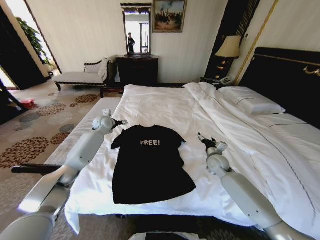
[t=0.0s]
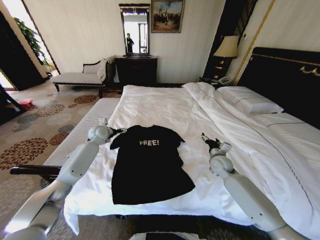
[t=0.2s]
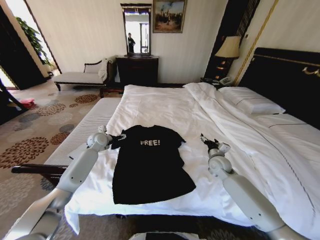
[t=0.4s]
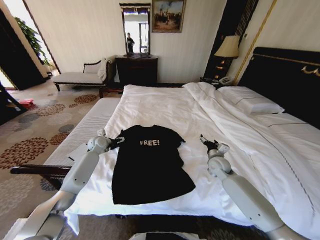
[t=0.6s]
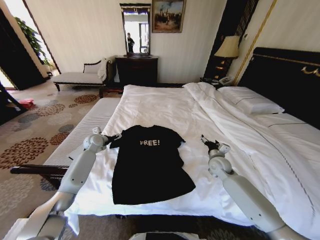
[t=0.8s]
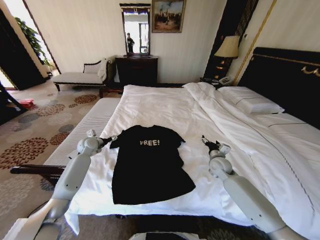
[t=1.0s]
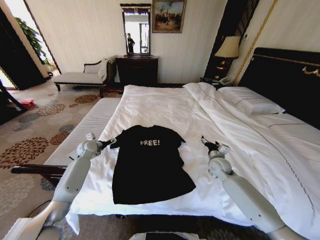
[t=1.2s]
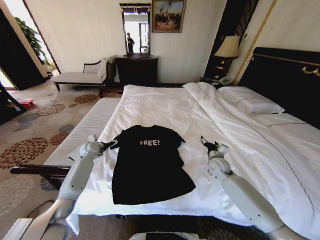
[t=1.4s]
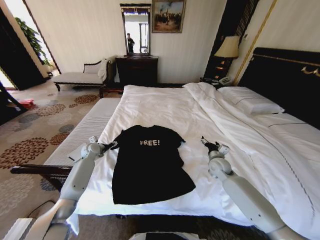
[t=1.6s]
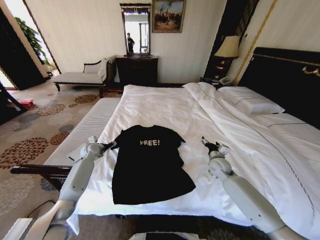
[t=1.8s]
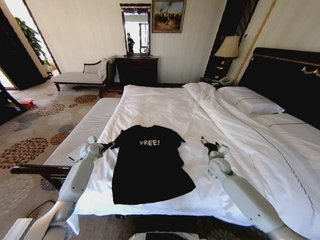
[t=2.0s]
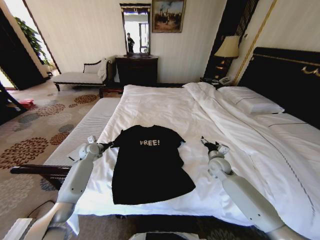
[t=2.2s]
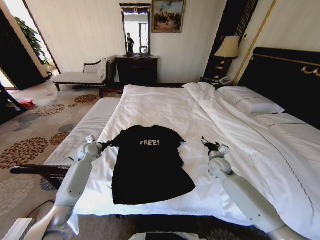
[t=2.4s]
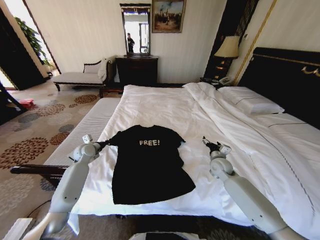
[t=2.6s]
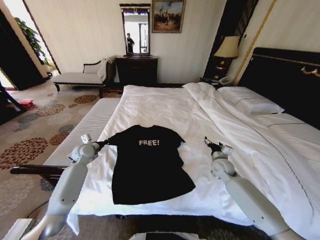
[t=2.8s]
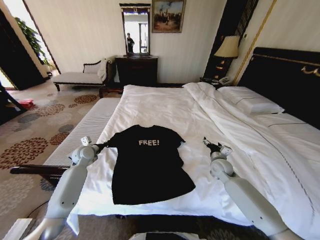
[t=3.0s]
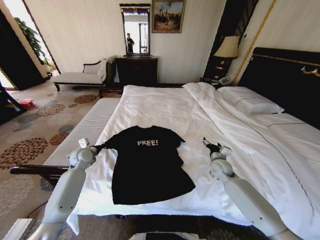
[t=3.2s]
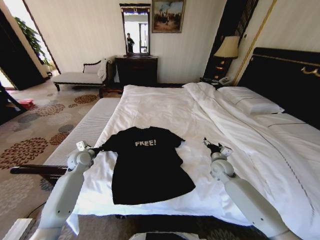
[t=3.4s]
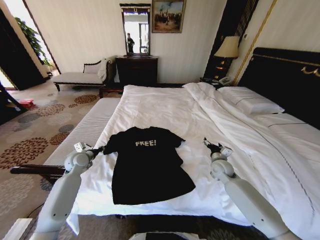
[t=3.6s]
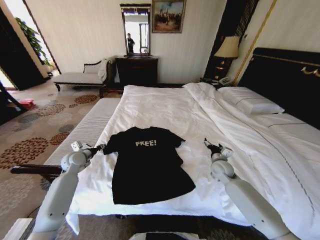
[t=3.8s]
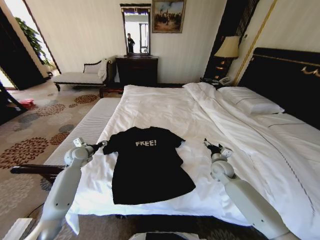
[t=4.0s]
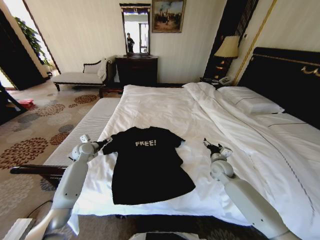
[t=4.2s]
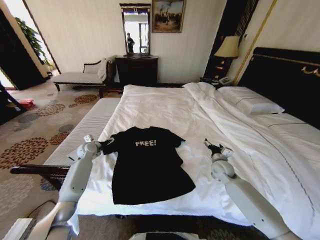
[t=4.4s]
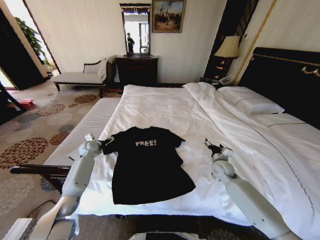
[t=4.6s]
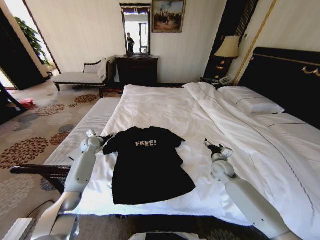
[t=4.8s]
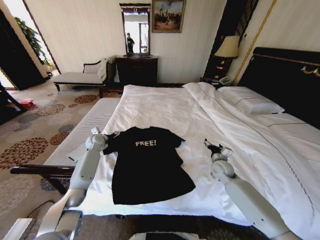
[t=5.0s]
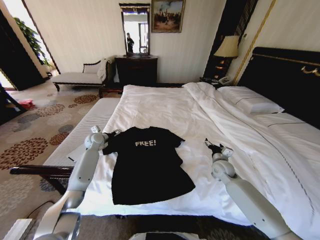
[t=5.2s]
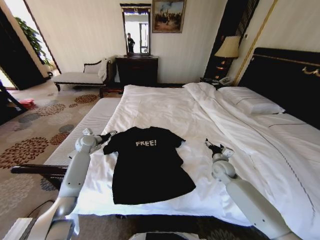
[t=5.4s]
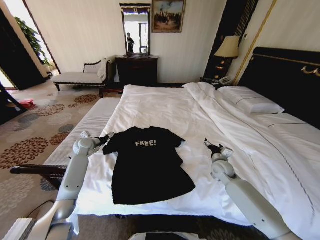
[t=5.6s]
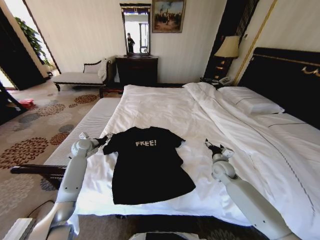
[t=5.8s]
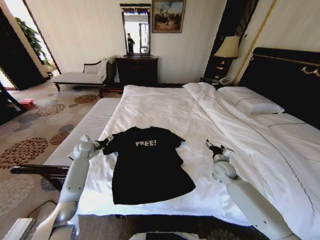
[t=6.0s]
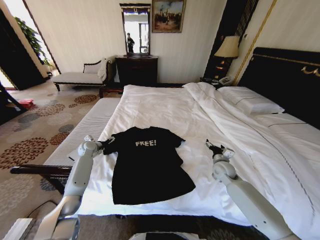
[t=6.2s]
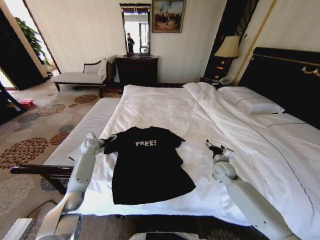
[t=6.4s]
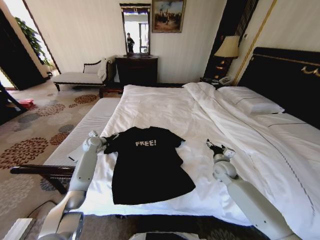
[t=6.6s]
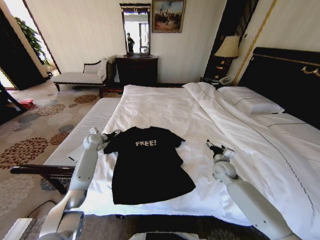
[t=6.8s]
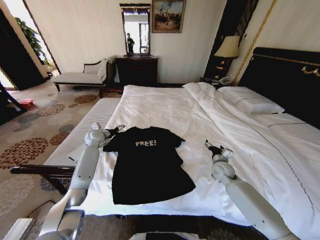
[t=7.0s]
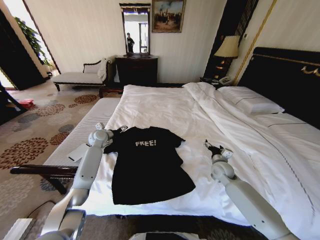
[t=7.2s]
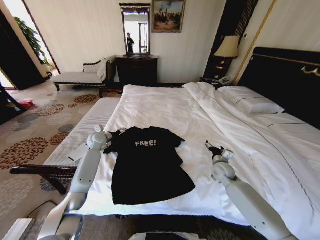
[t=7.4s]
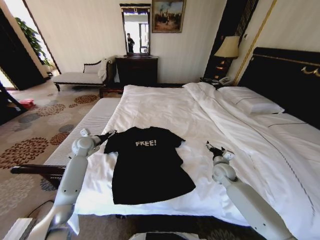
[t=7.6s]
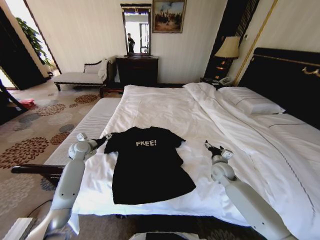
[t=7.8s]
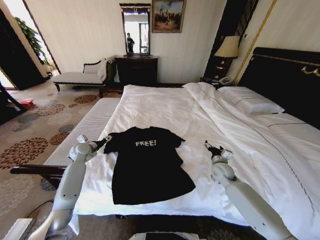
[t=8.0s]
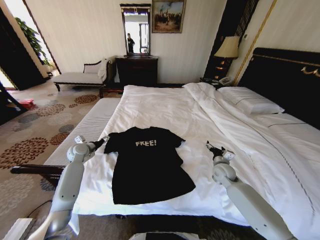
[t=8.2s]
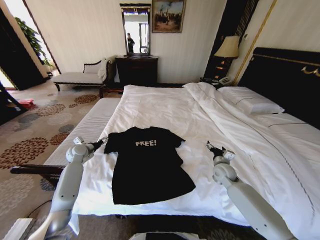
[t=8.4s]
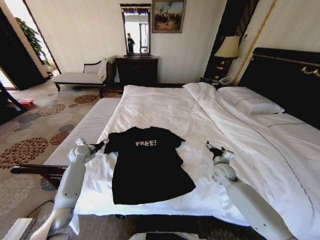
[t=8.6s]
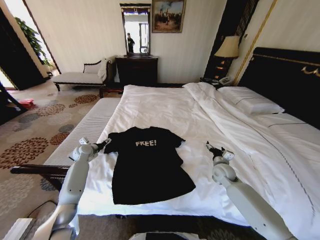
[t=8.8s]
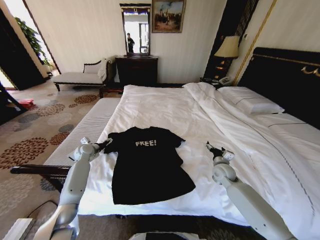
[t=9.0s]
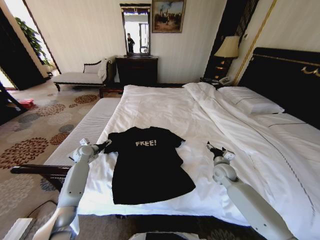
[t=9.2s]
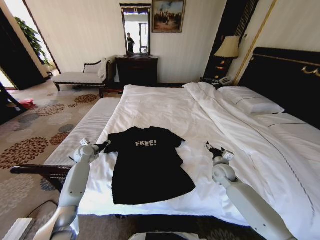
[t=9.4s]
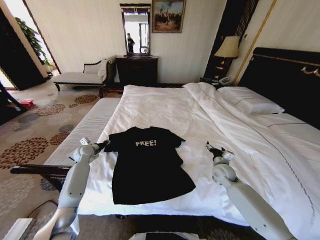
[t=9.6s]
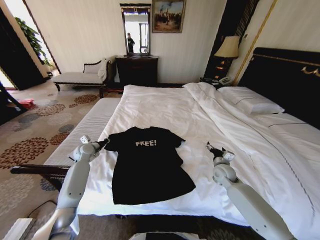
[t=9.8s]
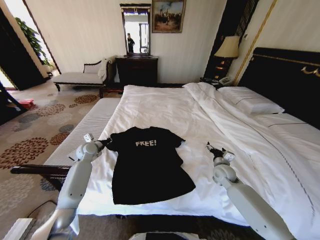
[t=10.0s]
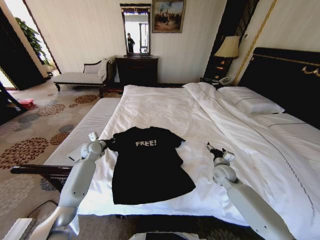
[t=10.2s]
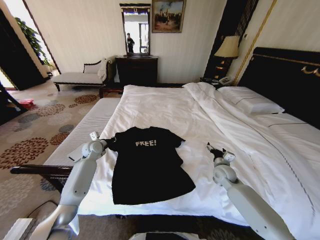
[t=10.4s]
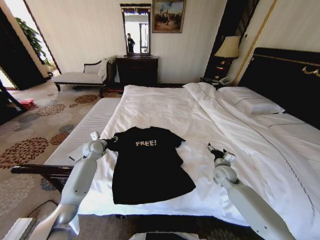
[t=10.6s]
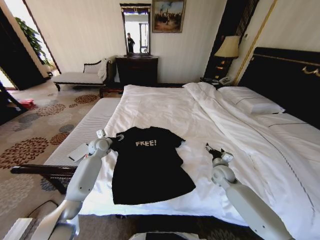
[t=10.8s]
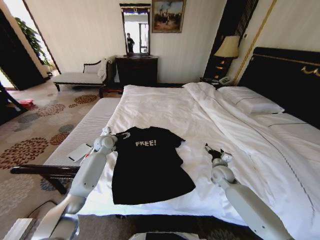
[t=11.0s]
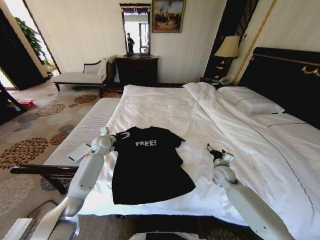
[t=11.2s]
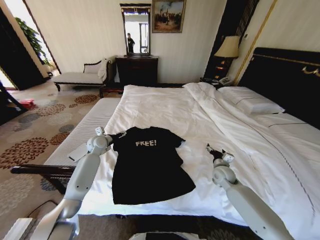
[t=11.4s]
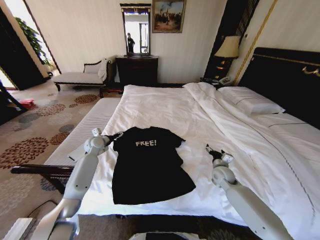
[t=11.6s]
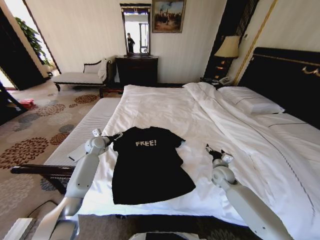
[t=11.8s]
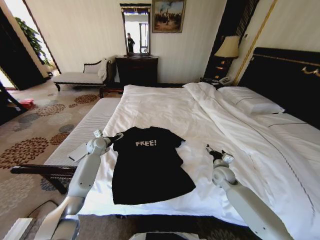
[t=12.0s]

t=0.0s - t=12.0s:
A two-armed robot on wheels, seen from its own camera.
Task of the whole recording: Fold the clothes on the bed.
t=0.0s - t=1.6s: The left gripper goes about 20 cm downward, backward and to the left.
t=1.6s - t=3.0s: The left gripper shifts roughly 5 cm backward, and closes its fingers.
t=3.0s - t=4.4s: The left gripper is displaced forward by some 5 cm, and opens.
t=6.0s - t=7.6s: The left gripper shifts some 5 cm upward.
t=7.6s - t=9.0s: The left gripper is displaced downward by about 5 cm.
t=9.0s - t=10.4s: The left gripper moves to the right, roughly 5 cm, and closes its fingers.
t=10.4s - t=12.0s: The left gripper opens its fingers.

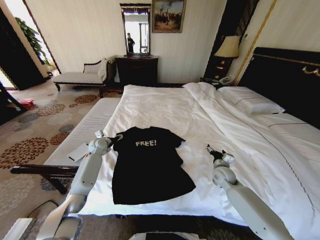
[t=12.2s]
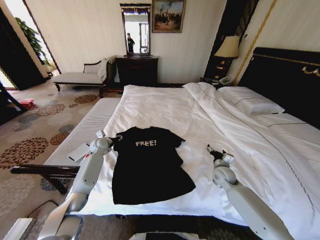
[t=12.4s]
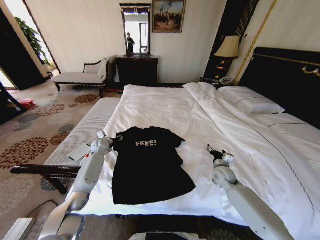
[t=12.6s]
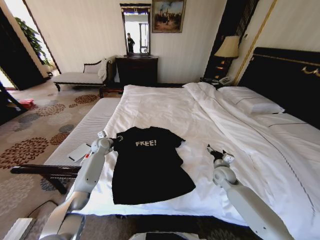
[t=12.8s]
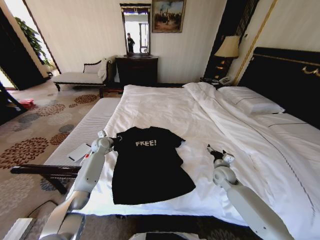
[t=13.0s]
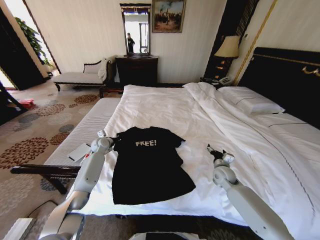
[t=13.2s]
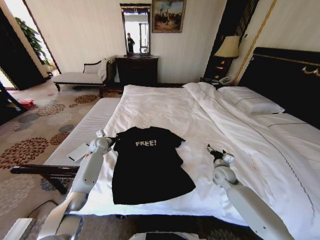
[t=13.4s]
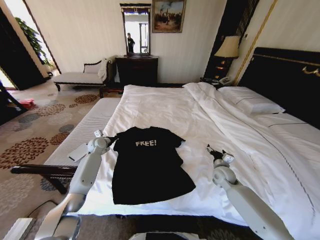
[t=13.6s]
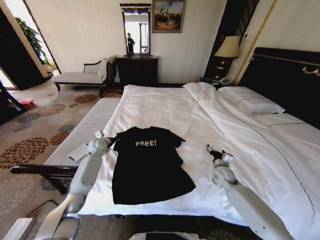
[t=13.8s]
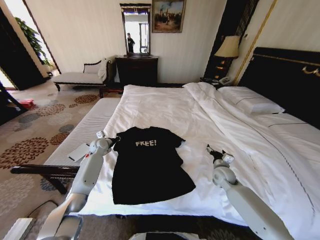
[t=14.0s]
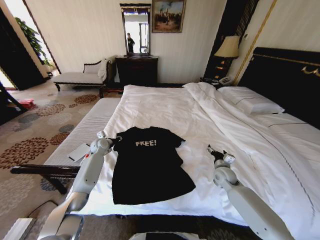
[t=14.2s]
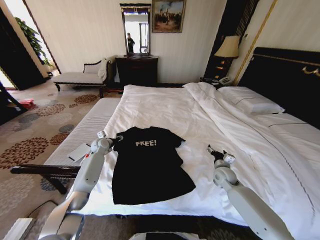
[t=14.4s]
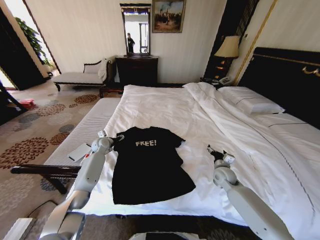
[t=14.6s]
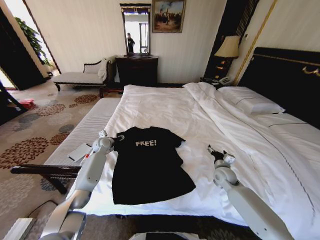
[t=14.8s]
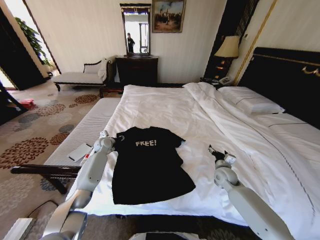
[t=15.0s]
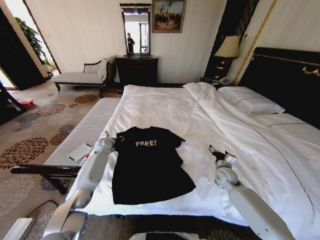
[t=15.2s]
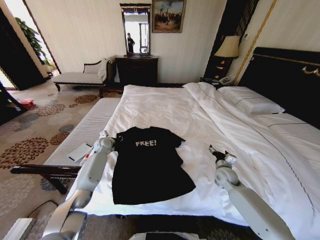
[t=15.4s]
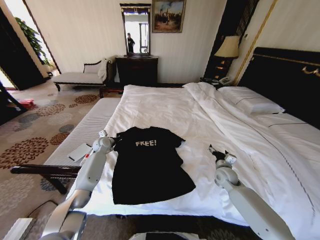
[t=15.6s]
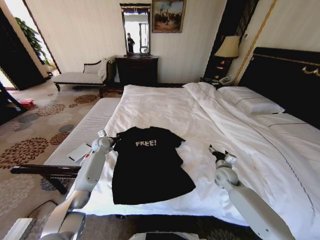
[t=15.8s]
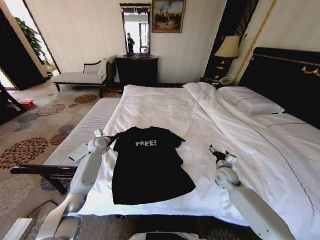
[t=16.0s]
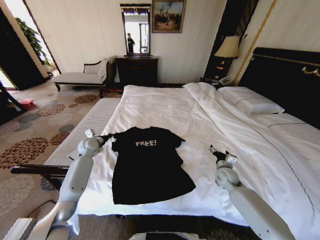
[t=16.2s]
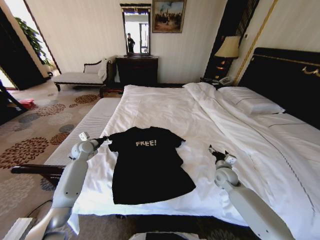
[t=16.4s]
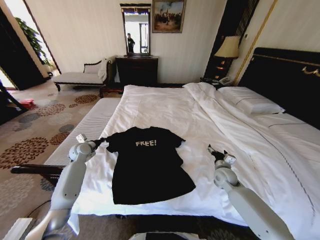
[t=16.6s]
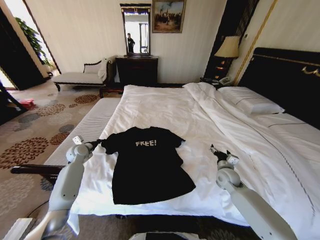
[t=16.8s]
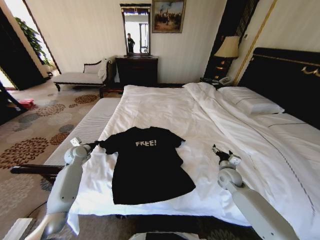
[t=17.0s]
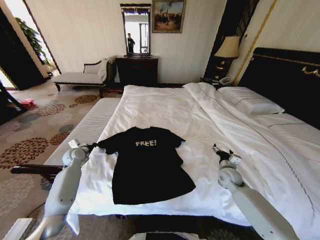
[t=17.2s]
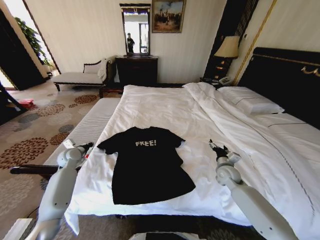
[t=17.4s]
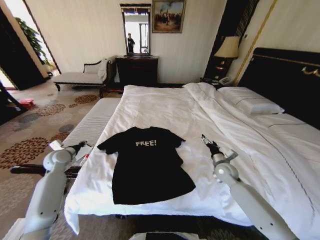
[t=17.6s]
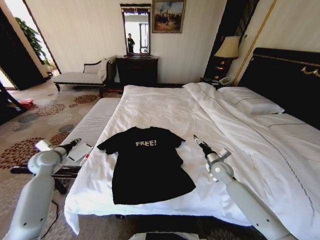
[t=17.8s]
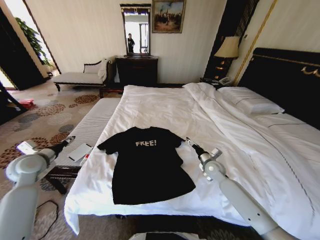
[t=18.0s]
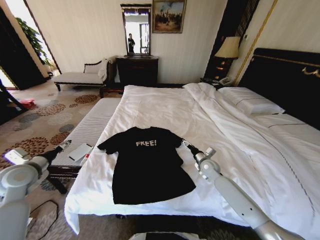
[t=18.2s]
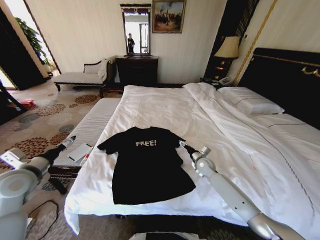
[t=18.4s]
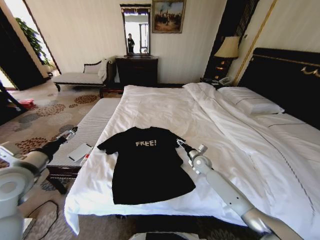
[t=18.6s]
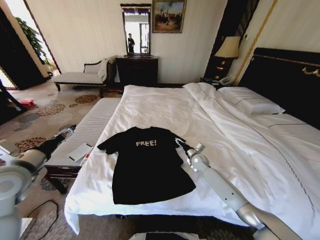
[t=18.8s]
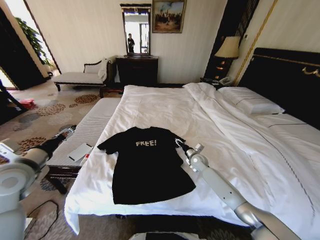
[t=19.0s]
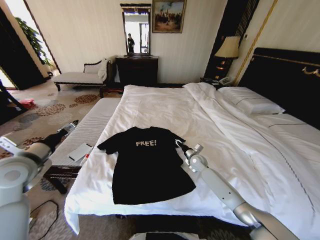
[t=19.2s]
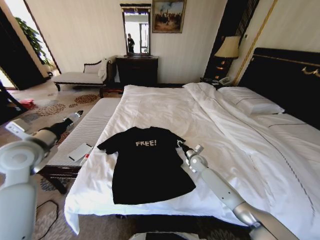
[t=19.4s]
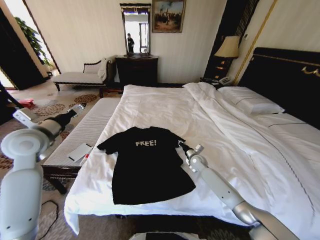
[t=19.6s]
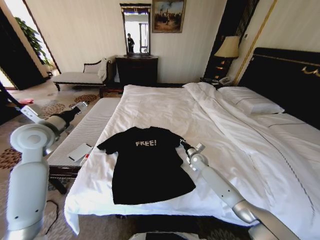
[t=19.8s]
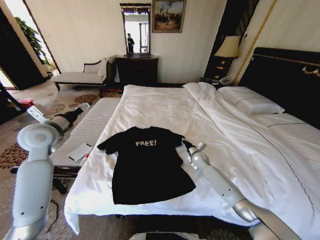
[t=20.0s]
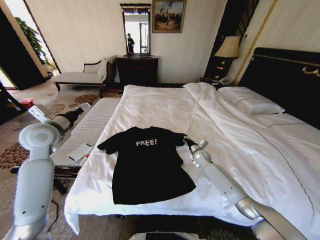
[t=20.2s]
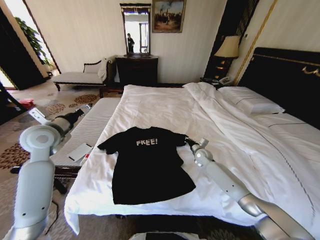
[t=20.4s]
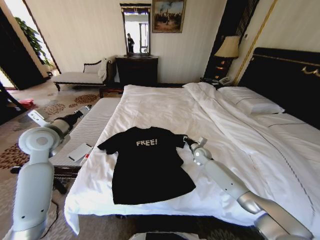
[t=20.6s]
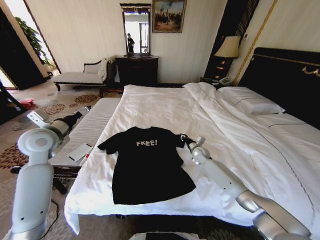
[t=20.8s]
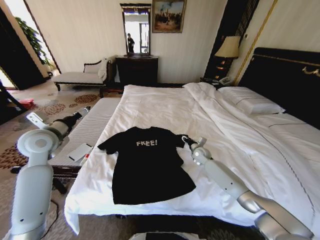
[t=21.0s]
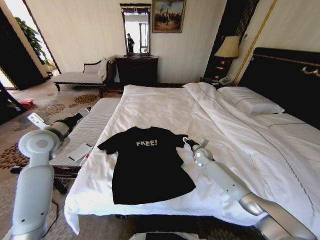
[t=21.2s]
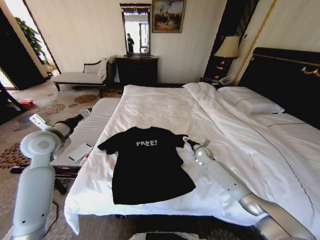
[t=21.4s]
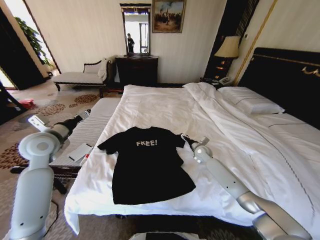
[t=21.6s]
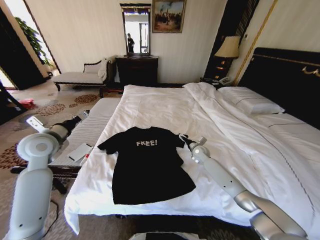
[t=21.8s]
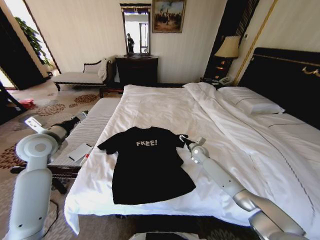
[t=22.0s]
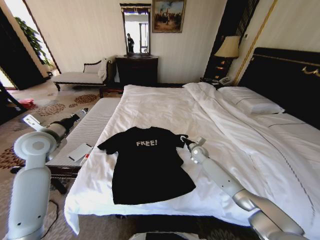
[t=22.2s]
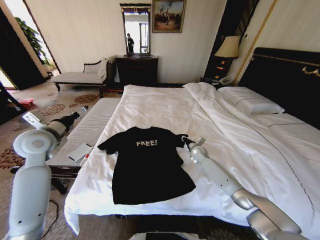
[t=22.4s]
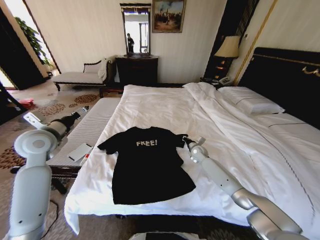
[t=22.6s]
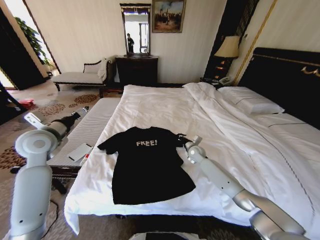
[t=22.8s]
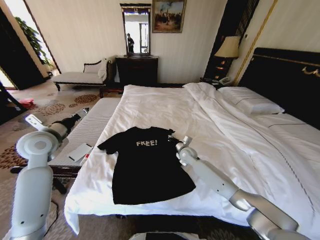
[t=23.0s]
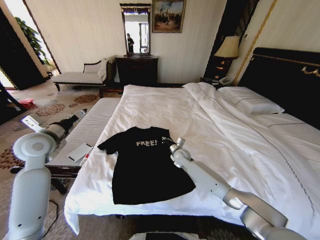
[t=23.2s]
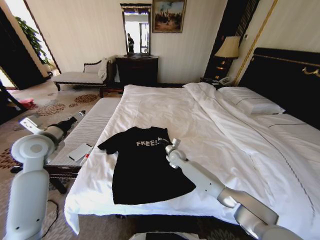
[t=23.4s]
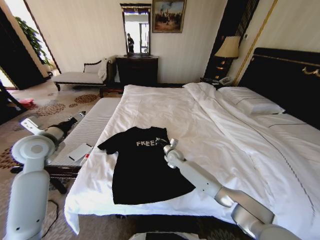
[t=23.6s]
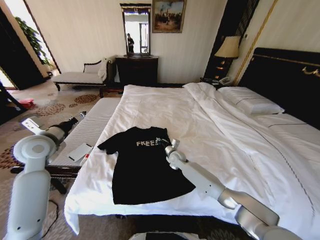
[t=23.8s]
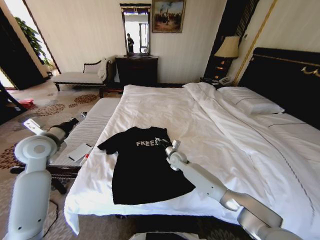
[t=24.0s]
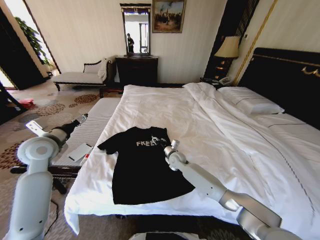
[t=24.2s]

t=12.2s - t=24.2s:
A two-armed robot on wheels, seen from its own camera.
Task of the whole recording: Fold the clothes on the bed.
t=13.8s - t=15.2s: The left gripper opens and closes again.
t=15.2s - t=16.6s: The left gripper shifts approximately 10 cm to the left and backward.
t=16.6s - t=18.2s: The left gripper goes roughly 20 cm backward and upward, and opens, while the right gripper travels to the left and forward by some 5 cm.
t=18.2s - t=19.8s: The right gripper heads forward, covering some 5 cm, and closes up. Meanwhile the left gripper moves upward, forward and to the right, about 15 cm.
t=19.8s - t=21.2s: The right gripper opens.
t=21.2s - t=22.6s: The right gripper closes its fingers.
t=22.6s - t=24.2s: The right gripper moves to the left, approximately 15 cm, and opens.
